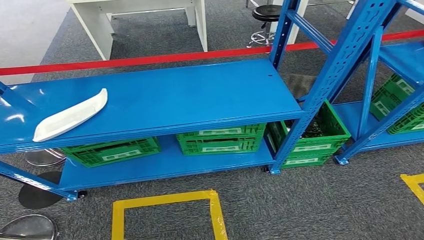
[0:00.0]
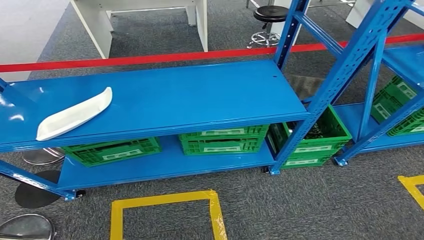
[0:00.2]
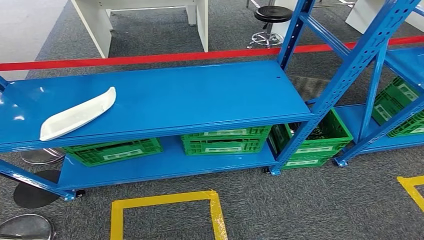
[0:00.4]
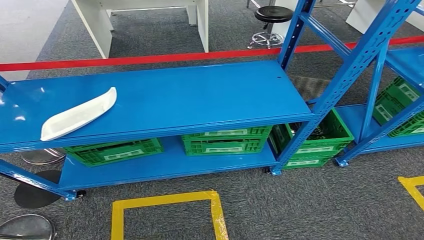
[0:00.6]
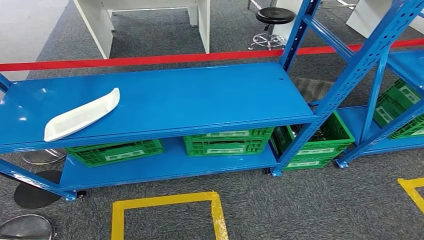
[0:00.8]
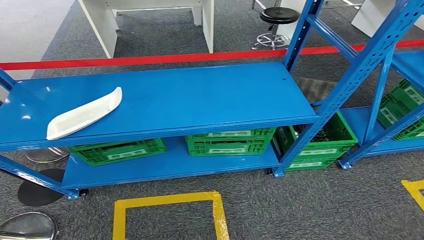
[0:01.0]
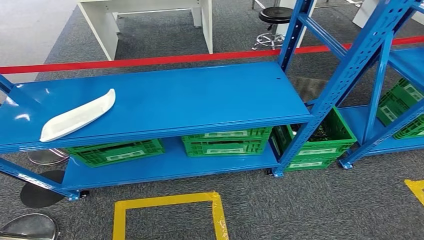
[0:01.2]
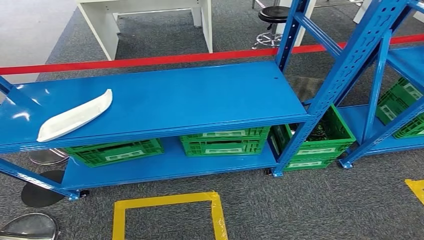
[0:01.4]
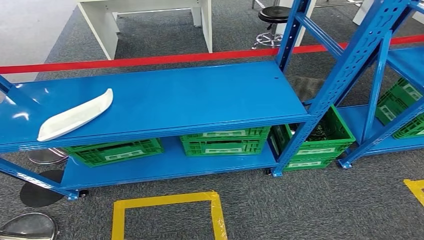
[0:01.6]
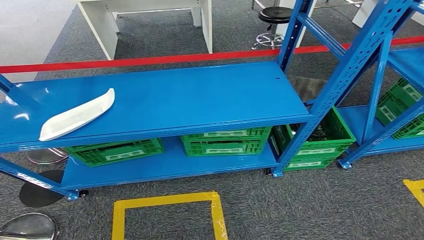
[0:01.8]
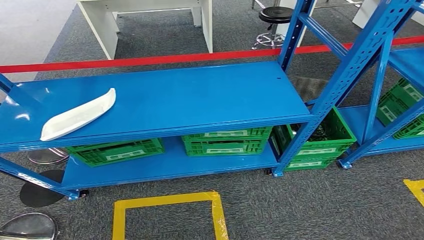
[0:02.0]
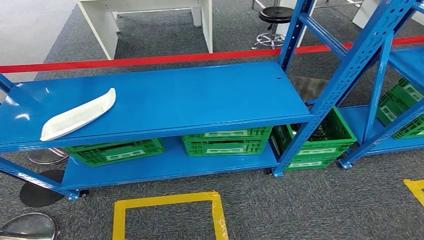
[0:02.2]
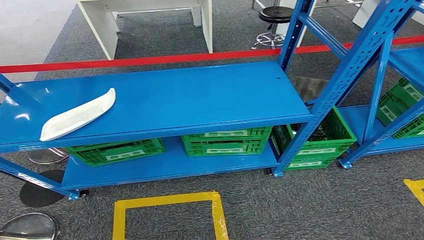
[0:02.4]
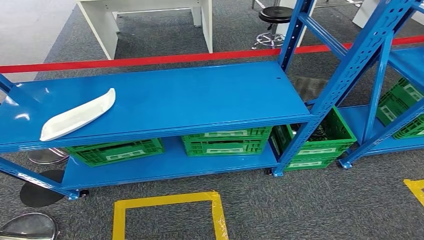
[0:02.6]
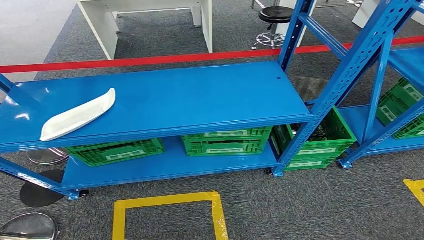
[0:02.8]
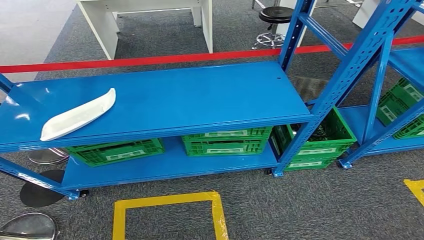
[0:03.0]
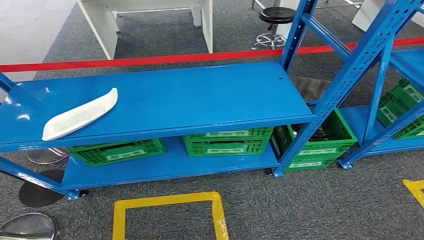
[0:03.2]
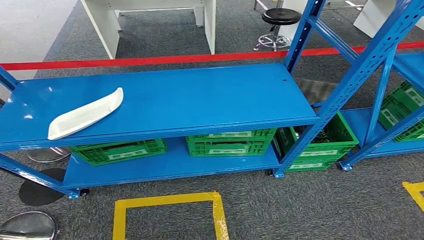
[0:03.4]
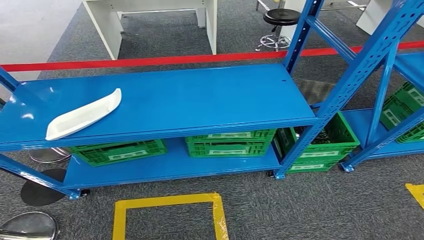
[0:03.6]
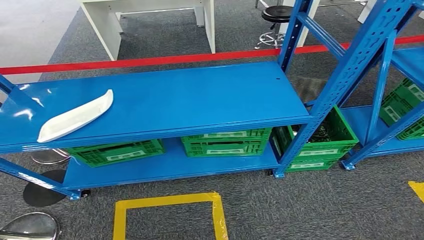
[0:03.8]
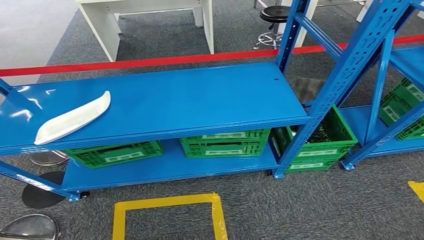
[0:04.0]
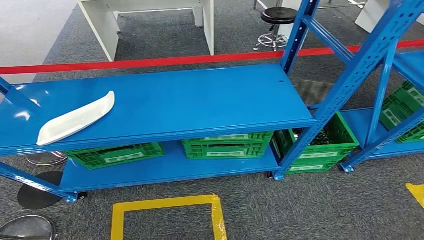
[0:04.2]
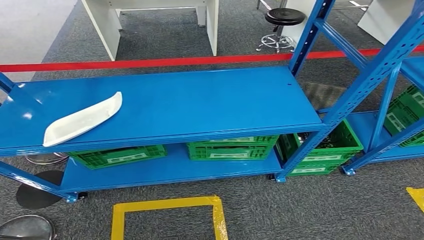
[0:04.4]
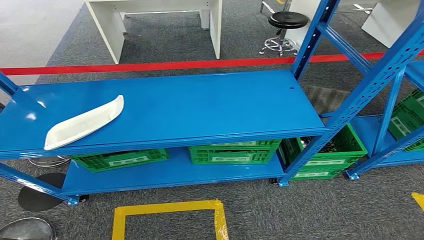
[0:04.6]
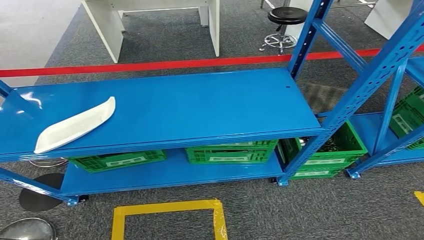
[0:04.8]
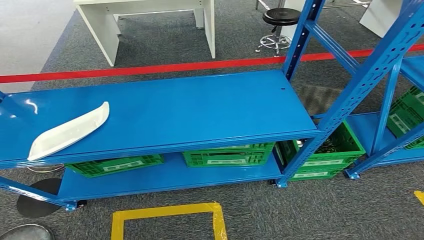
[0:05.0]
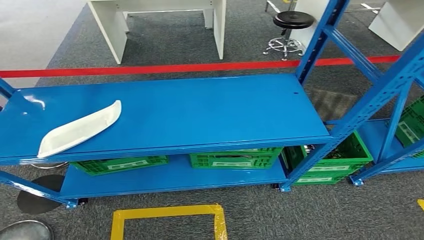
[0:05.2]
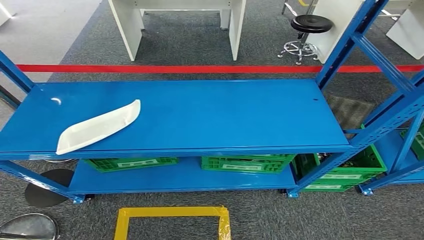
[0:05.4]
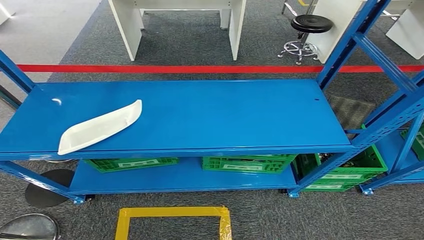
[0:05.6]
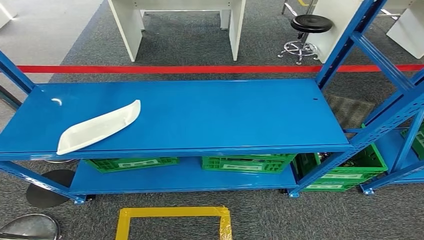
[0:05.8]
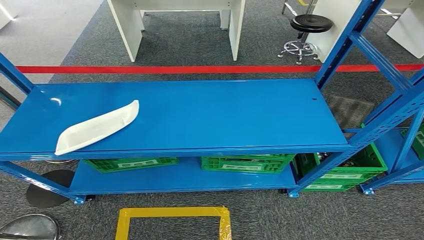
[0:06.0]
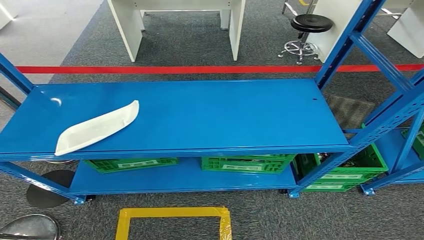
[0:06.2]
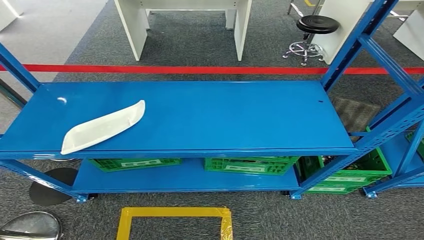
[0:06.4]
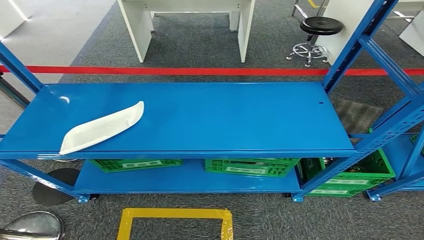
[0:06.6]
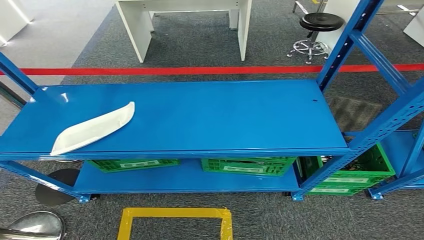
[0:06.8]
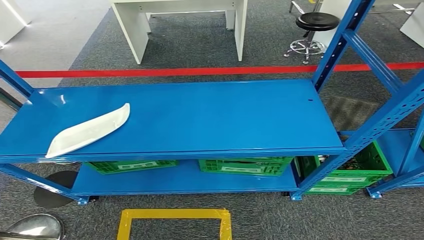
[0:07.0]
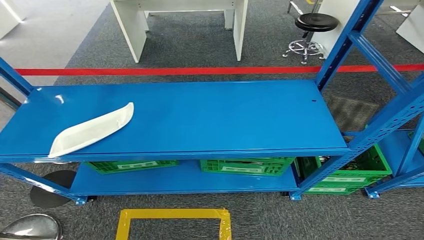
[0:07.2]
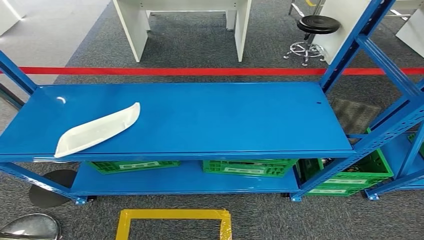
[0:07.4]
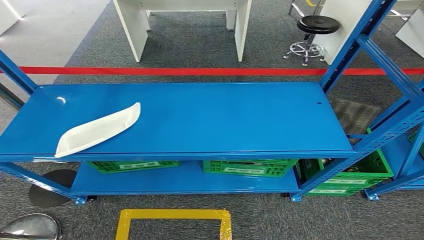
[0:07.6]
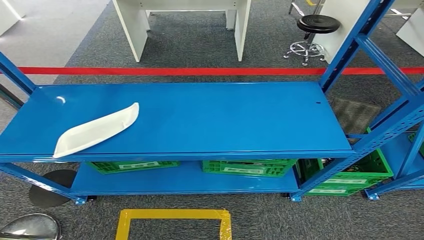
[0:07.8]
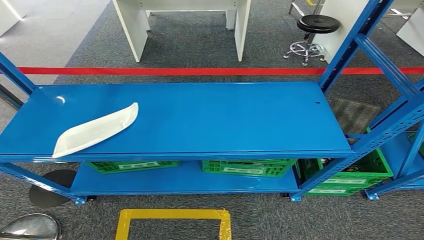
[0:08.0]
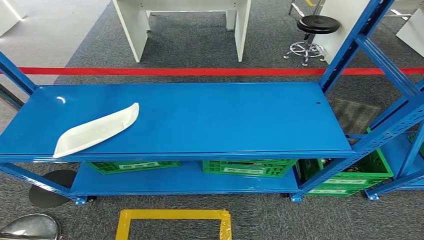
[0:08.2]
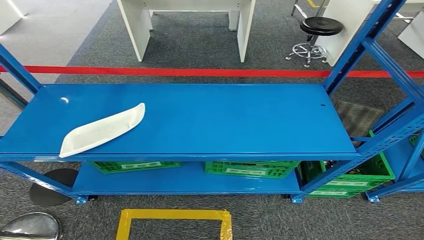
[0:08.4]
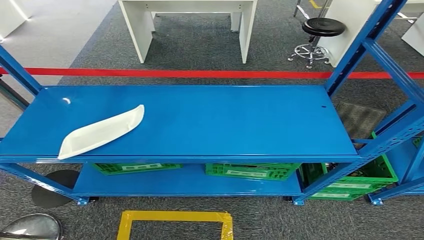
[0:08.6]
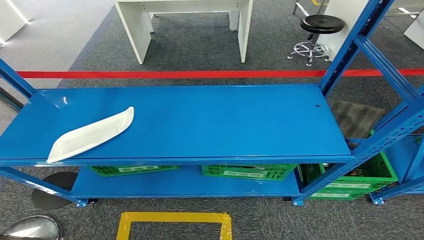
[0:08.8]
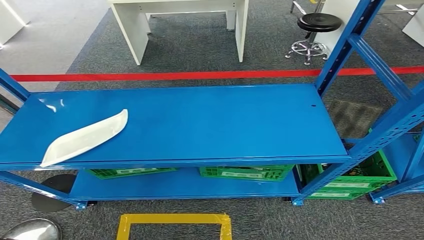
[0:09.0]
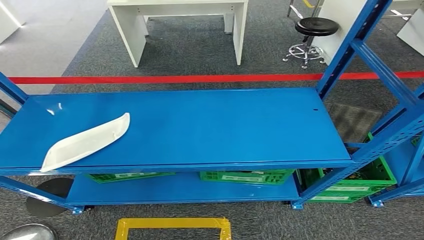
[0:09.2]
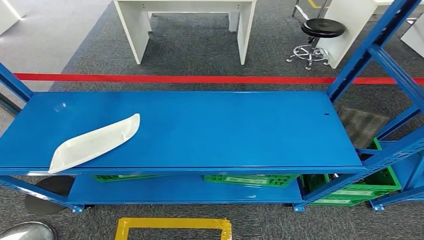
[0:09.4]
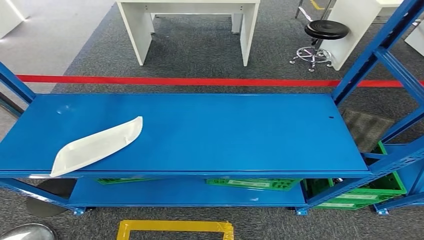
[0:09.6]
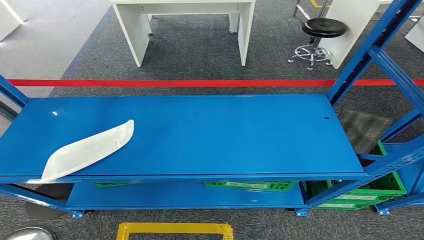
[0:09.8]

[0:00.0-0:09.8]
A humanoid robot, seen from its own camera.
Step, 0.0 to 9.8 s: Move to the initial position of the workbench.
0.0 to 4.2 s: The two hands keep their place.

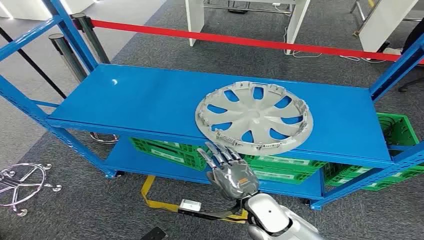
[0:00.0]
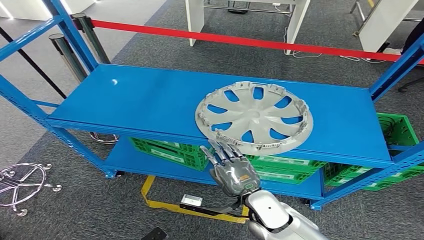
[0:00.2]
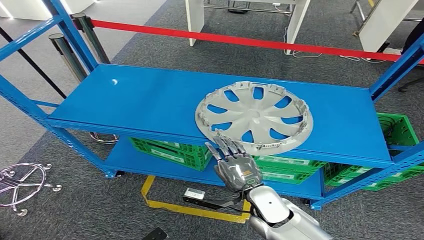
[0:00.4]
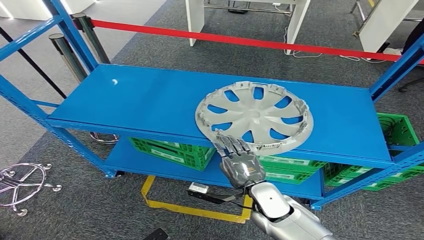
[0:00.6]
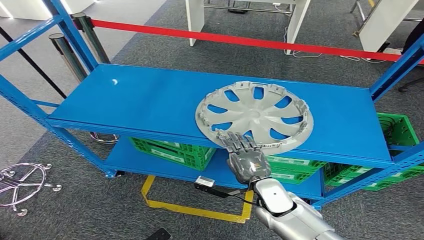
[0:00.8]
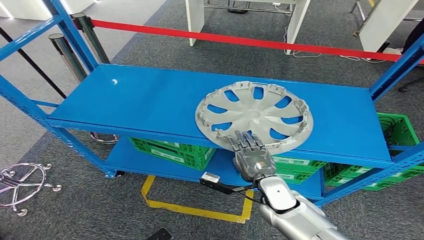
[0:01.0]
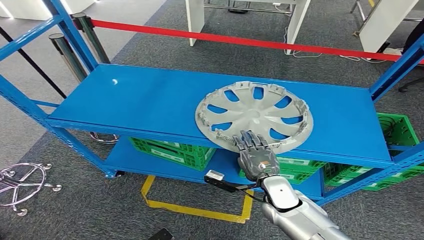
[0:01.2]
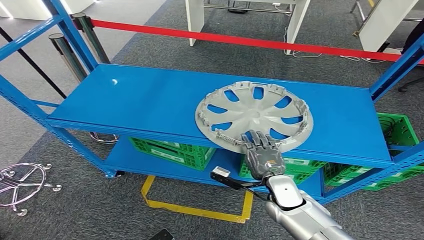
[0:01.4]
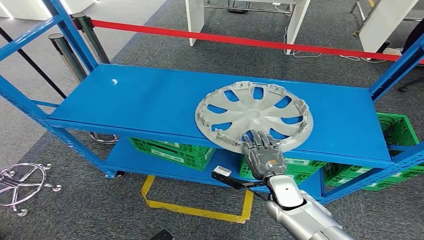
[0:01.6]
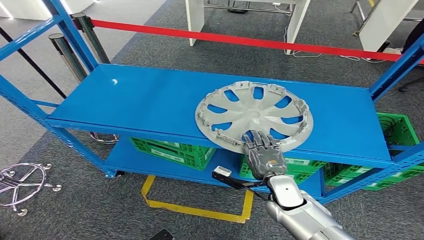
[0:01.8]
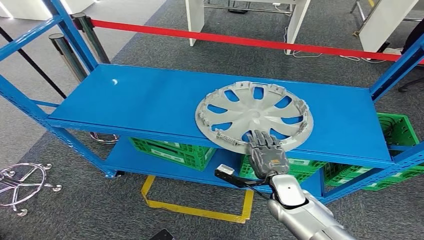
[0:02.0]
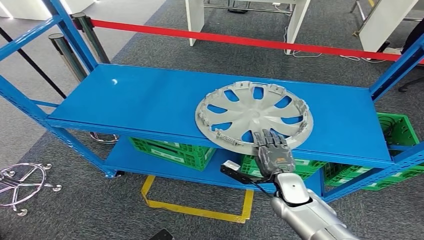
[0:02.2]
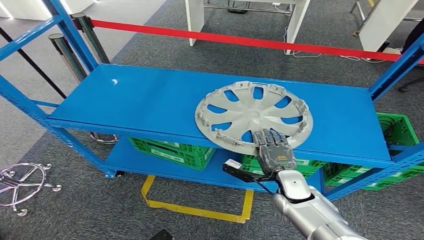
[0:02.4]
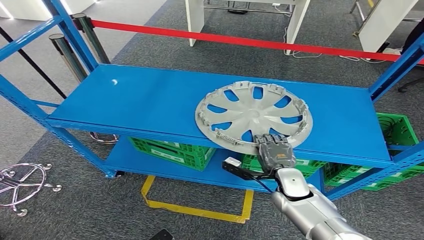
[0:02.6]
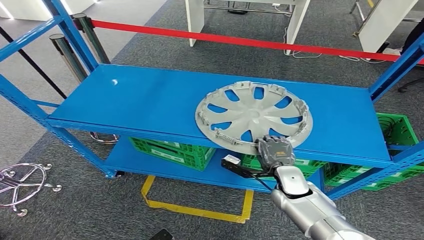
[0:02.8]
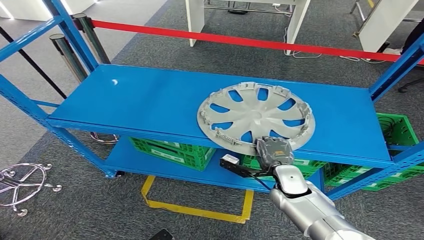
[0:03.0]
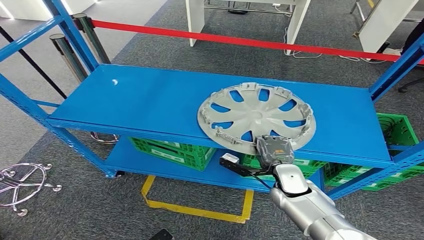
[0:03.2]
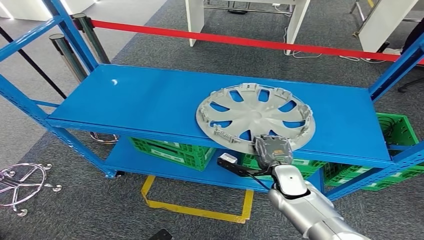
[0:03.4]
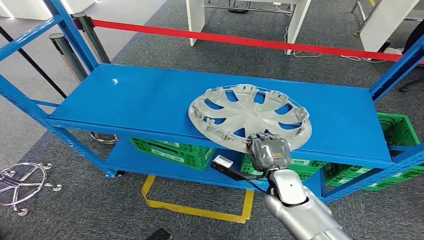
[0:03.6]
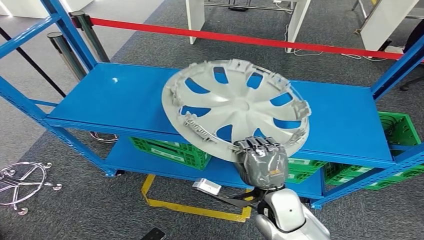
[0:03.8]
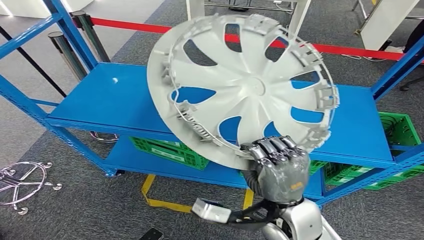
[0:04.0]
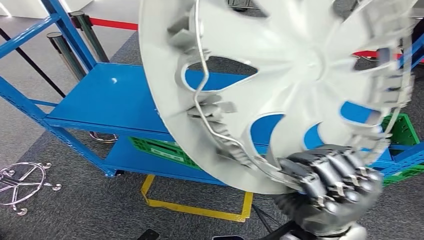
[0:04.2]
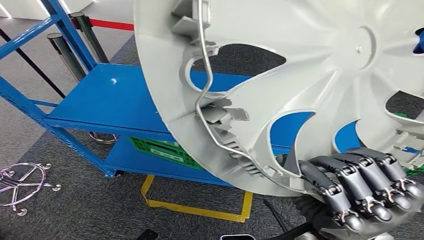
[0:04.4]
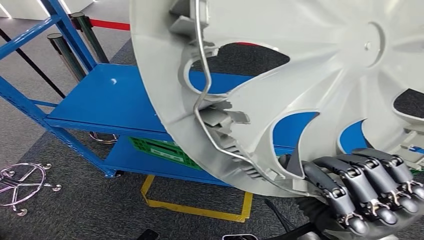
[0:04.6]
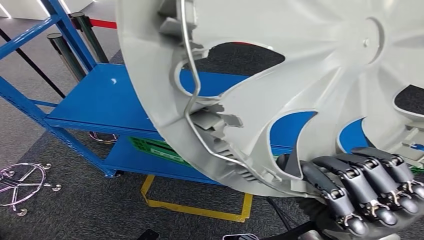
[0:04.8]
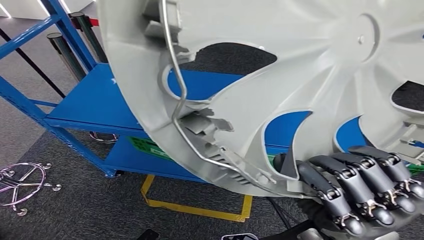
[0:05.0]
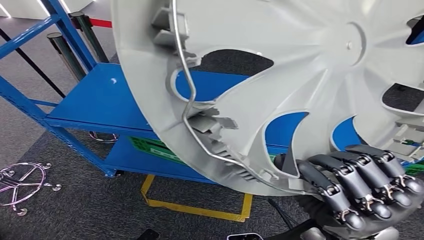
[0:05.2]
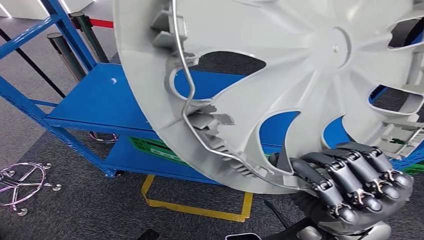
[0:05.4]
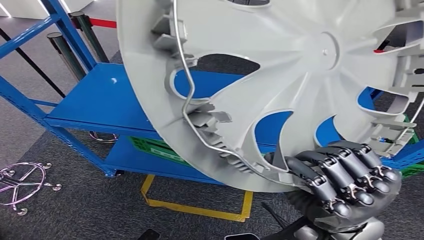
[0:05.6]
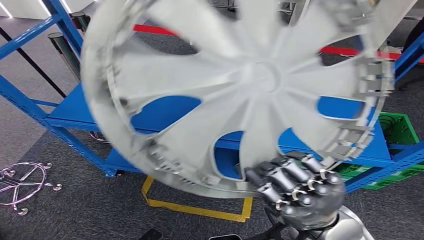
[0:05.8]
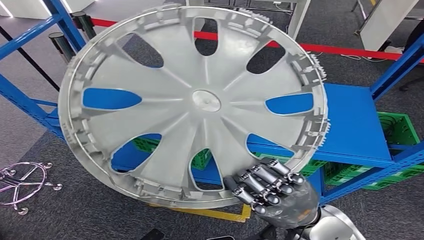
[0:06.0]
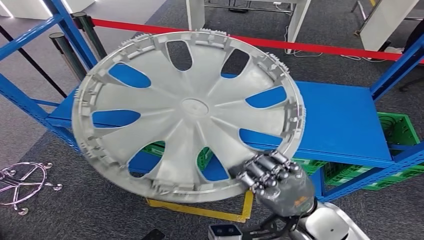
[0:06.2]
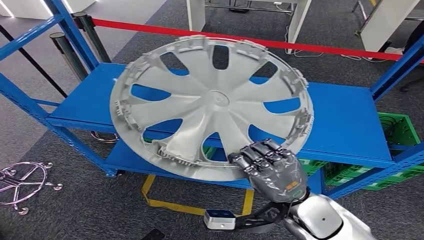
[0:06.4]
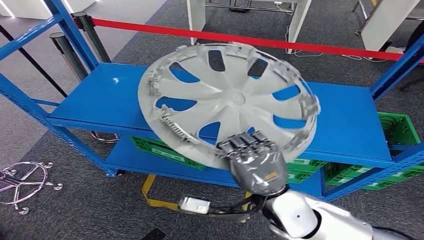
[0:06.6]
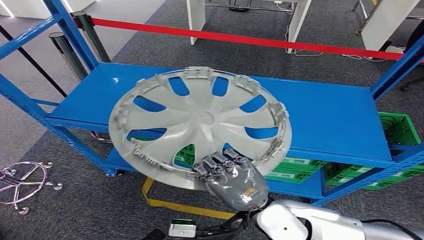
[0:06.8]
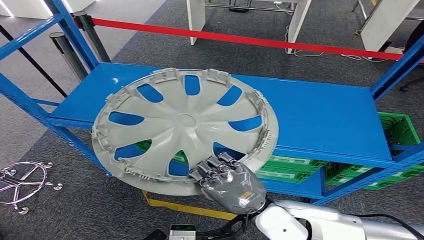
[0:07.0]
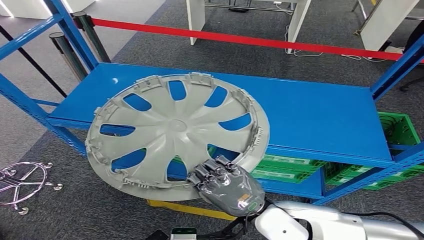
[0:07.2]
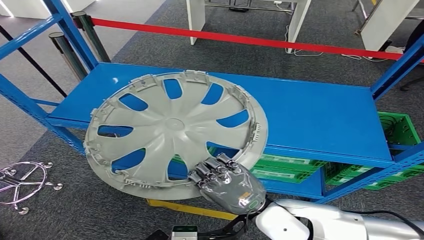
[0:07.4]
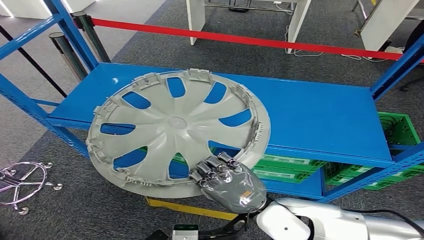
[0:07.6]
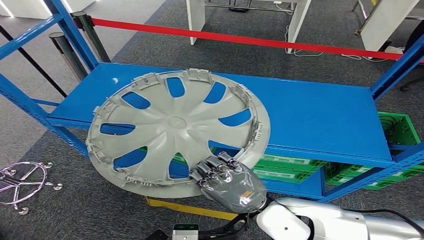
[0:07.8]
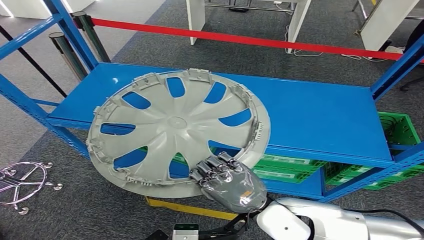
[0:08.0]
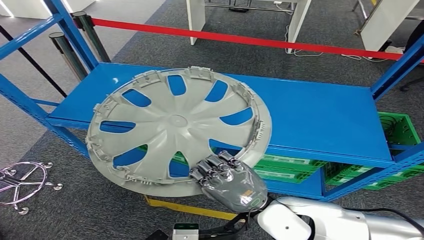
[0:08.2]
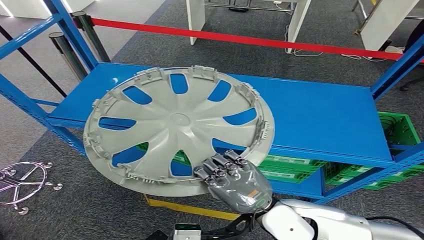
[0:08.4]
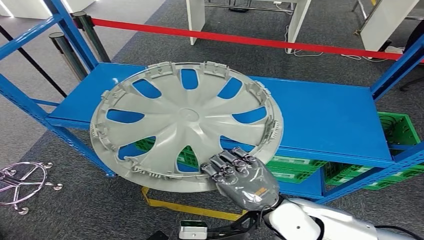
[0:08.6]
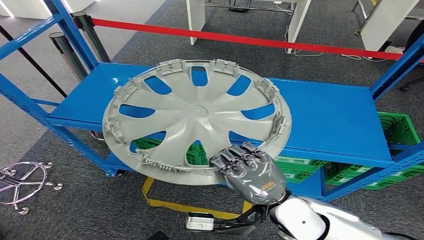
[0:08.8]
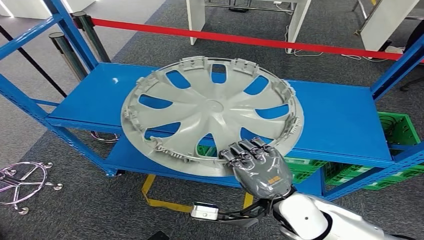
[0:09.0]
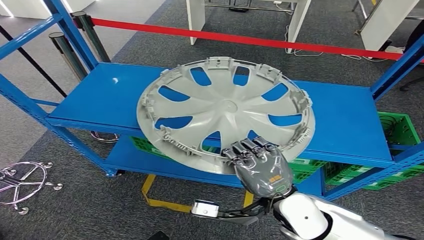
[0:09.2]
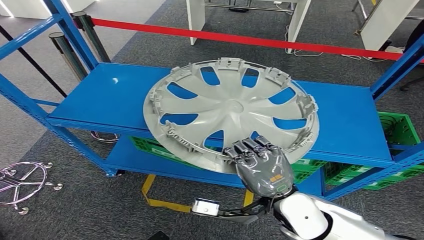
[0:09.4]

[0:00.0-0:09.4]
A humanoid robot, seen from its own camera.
Step, 0.0 to 5.2 s: Pick up the small component from the shelf.
1.6 to 3.2 s: The hands make only small movements.
